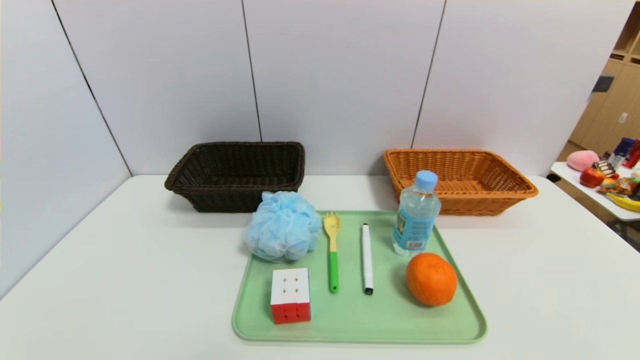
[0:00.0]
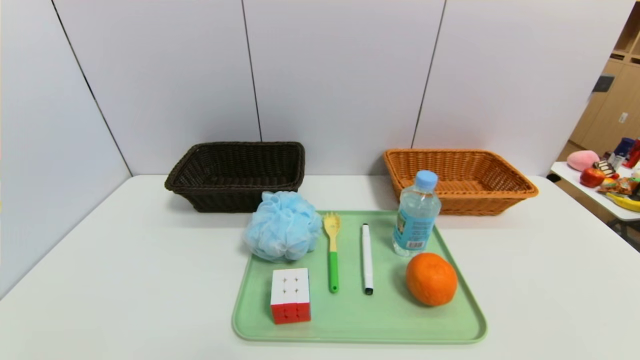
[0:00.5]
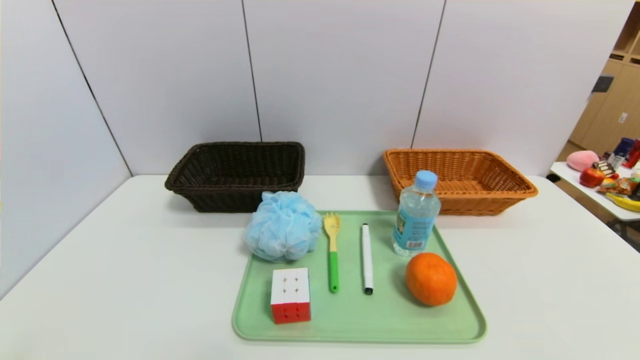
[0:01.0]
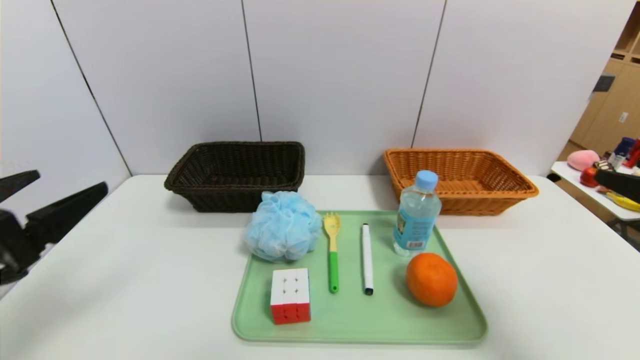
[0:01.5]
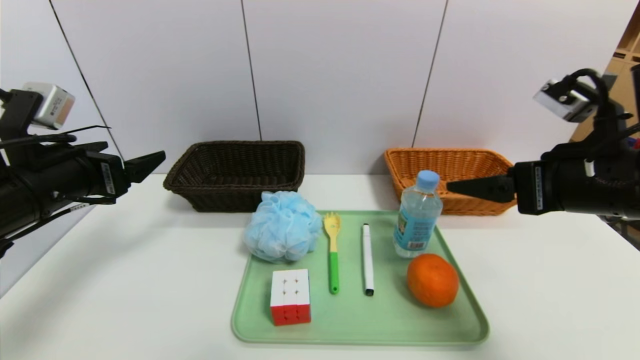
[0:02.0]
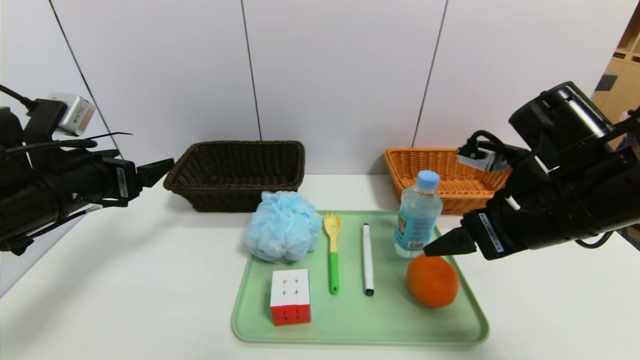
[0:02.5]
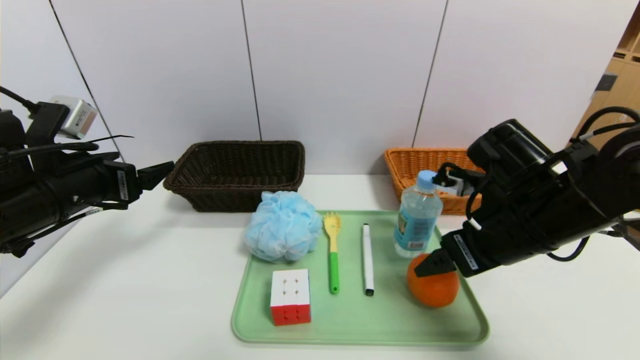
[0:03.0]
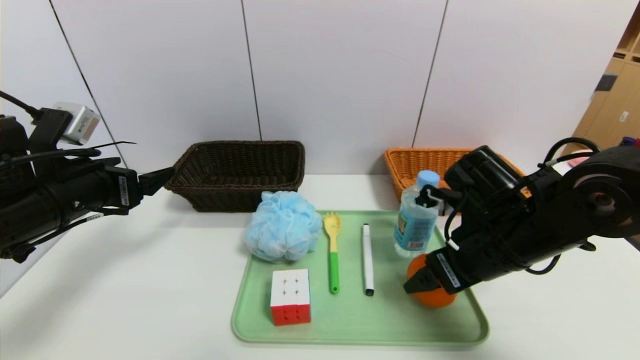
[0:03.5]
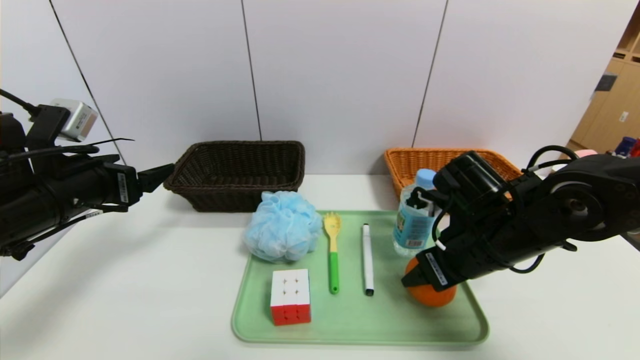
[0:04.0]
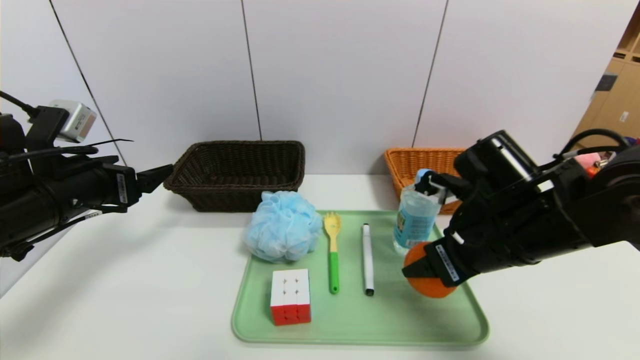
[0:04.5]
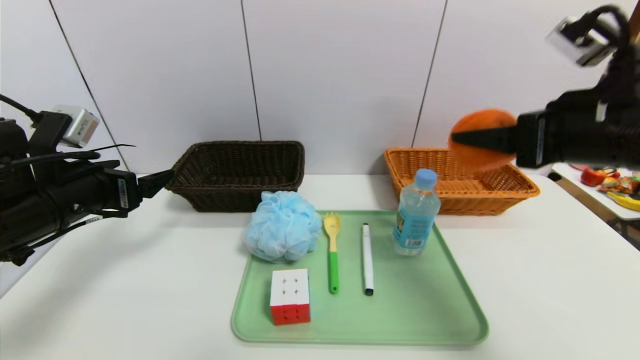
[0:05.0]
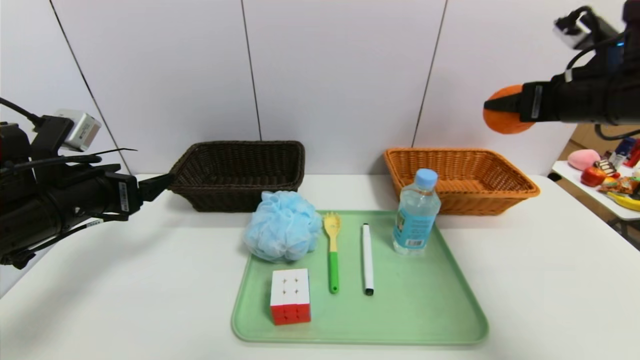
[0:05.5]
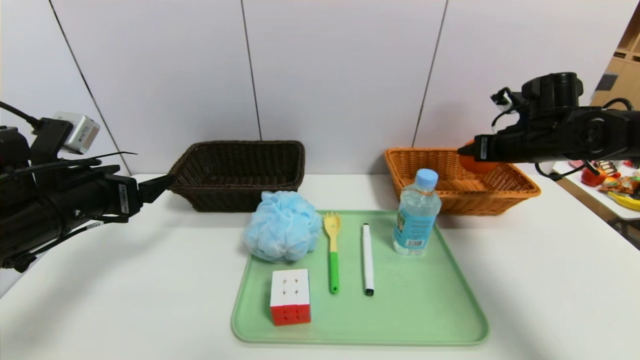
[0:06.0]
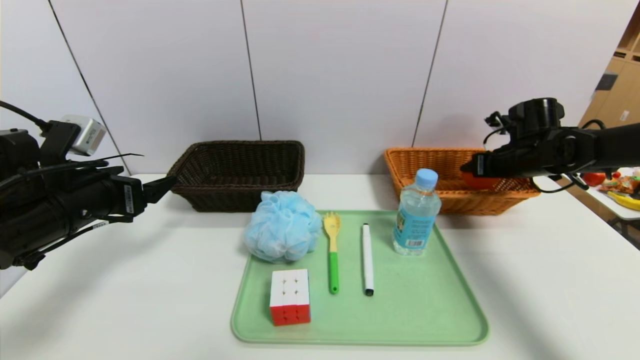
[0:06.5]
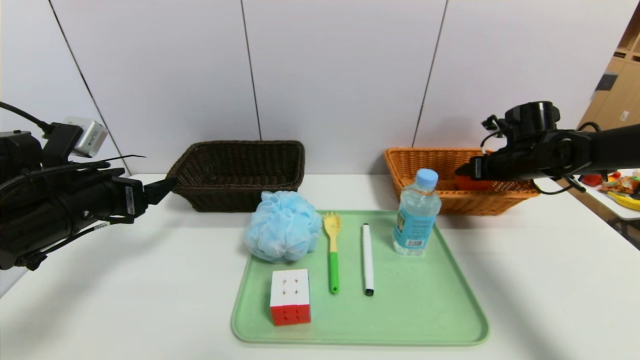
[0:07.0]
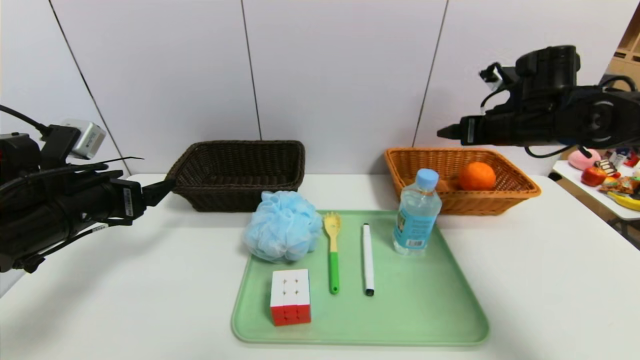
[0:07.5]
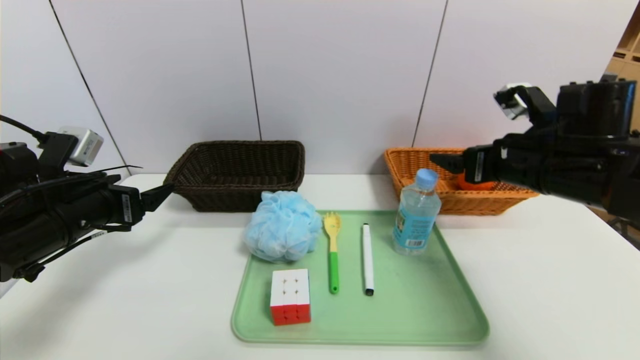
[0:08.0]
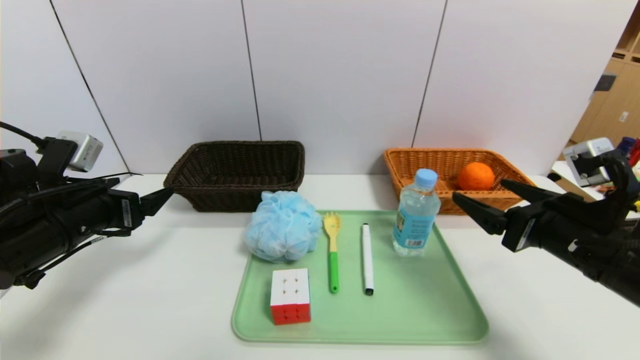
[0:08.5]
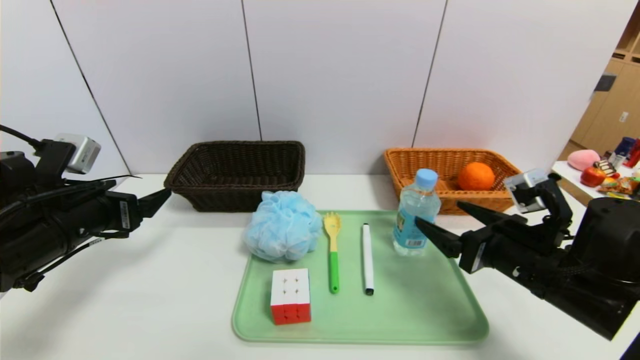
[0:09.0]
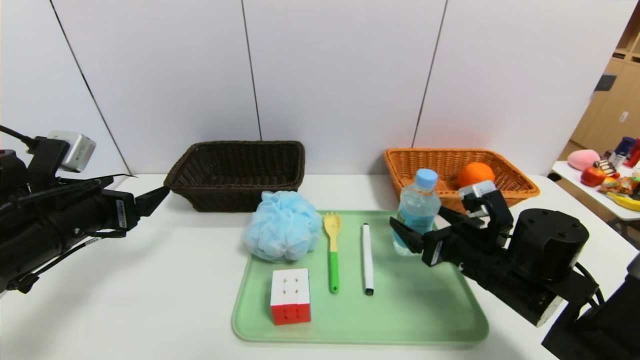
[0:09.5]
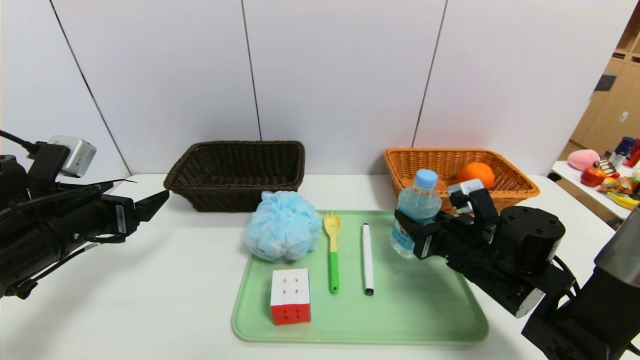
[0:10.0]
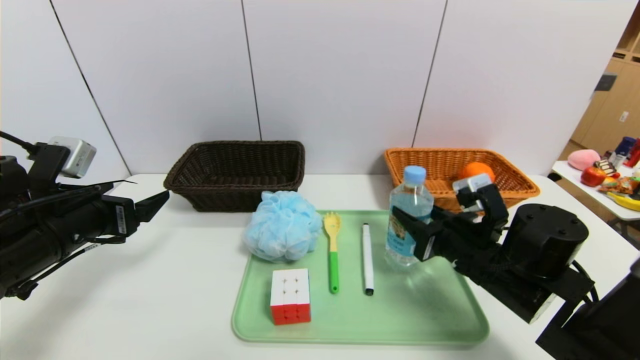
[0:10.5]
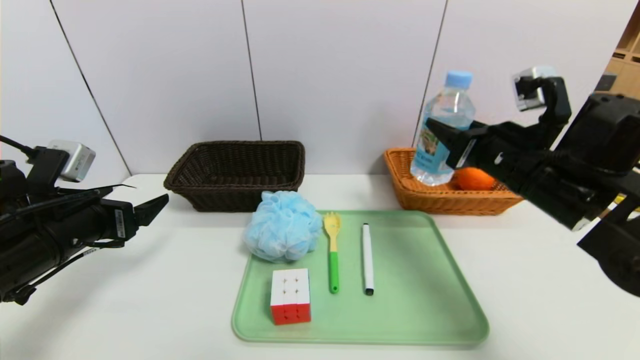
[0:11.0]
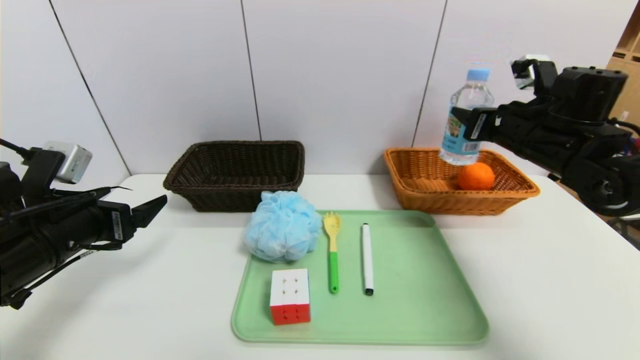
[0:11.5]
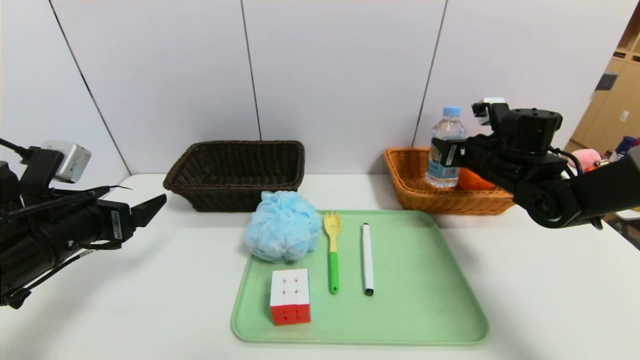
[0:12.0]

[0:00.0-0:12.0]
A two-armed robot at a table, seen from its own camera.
Task of the whole recording: place the food in the right basket with the right gripper, and place the non food items in the left basket with the left gripper.
Step, 0:00.0 to 0:07.0: Grasp the orange and put it in the right basket.
0:00.0 to 0:02.0: Both grippers travel together forward and upward, roughly 30 cm.
0:02.0 to 0:04.0: The right gripper moves downward and to the left, approximately 15 cm, and closes.
0:04.0 to 0:06.0: The right gripper travels to the right and forward by roughly 20 cm.
0:06.0 to 0:08.0: The right gripper heads backward and to the left, covering about 15 cm, and opens up.
0:08.0 to 0:10.0: The right gripper travels downward by some 15 cm, and closes up.
0:10.0 to 0:12.0: The right gripper goes approximately 15 cm forward, upward and to the right.

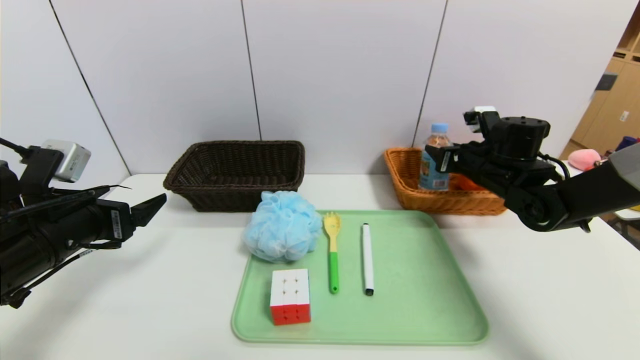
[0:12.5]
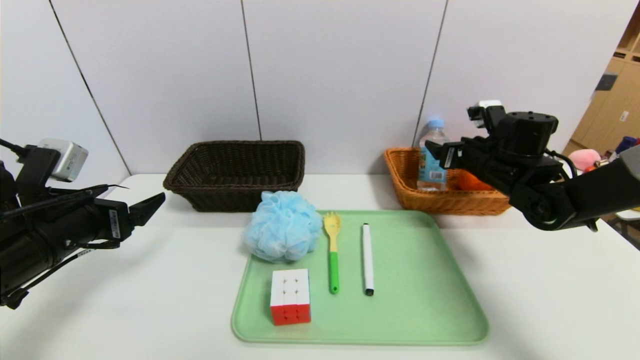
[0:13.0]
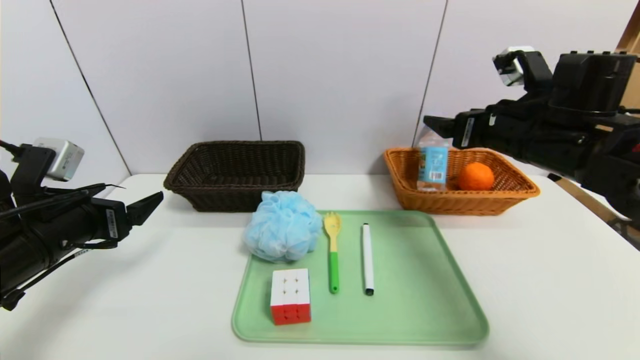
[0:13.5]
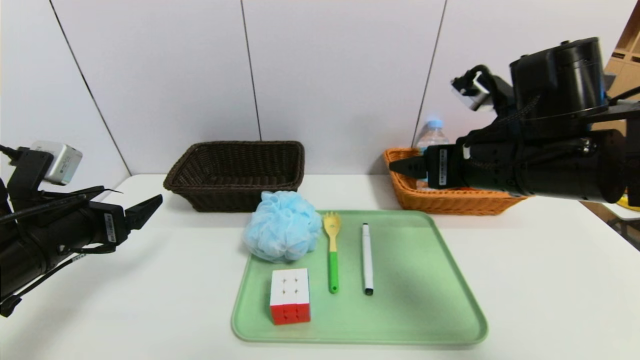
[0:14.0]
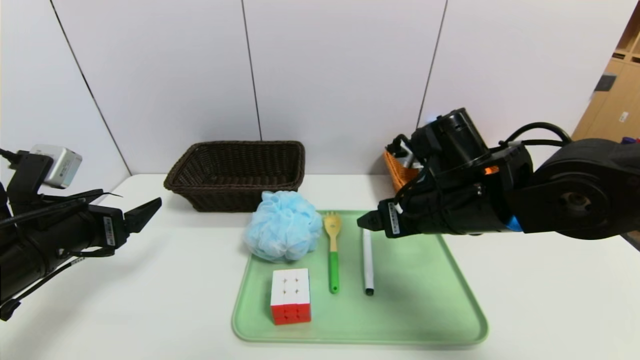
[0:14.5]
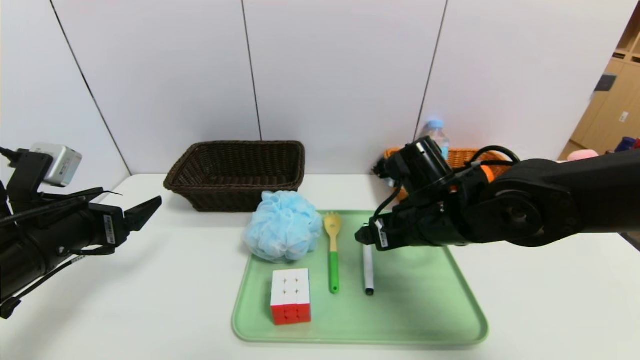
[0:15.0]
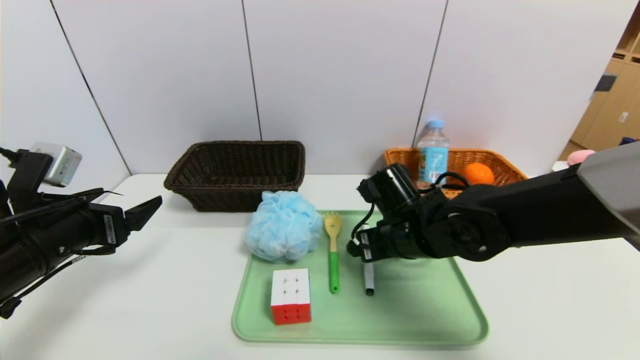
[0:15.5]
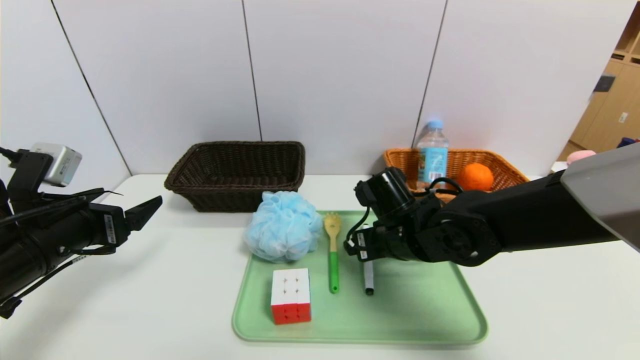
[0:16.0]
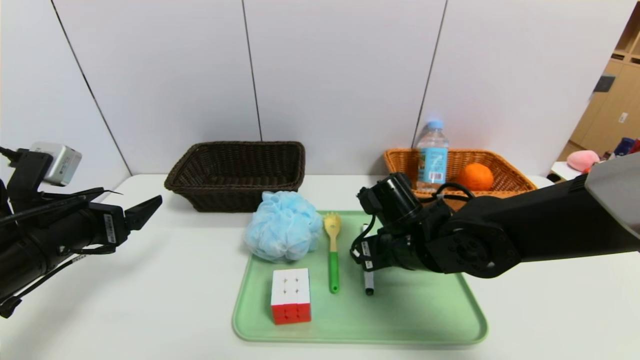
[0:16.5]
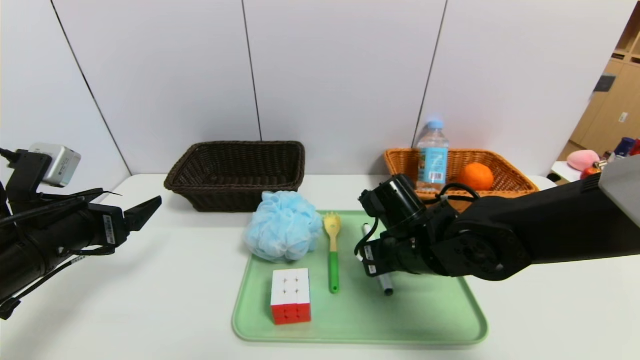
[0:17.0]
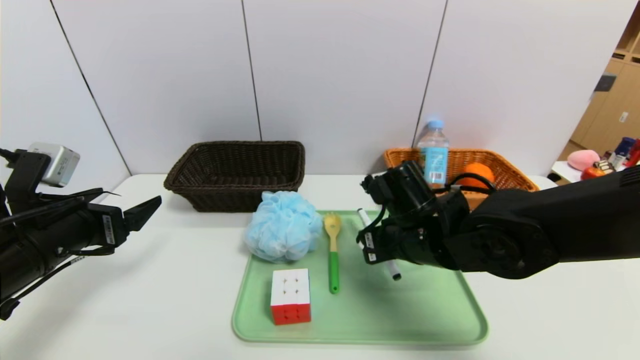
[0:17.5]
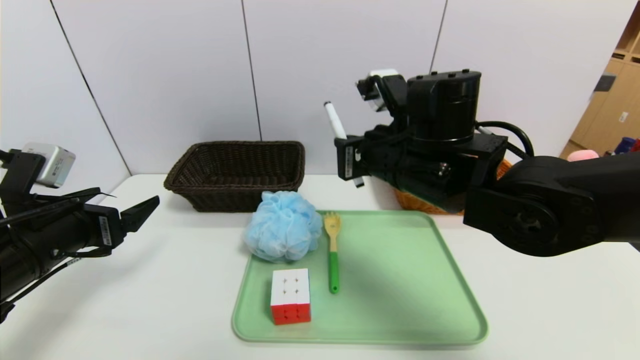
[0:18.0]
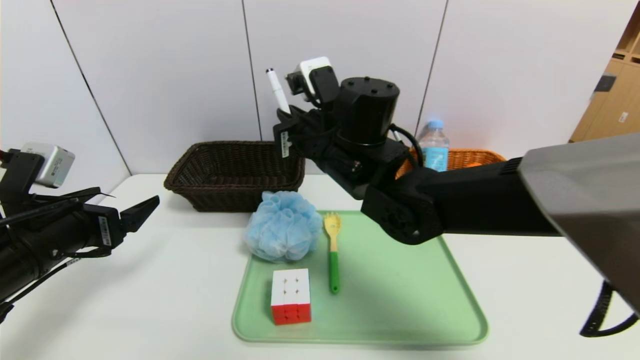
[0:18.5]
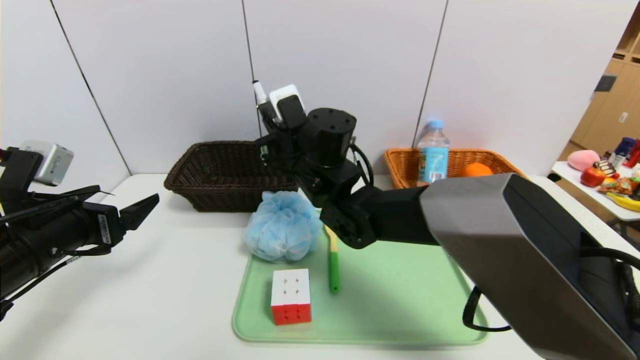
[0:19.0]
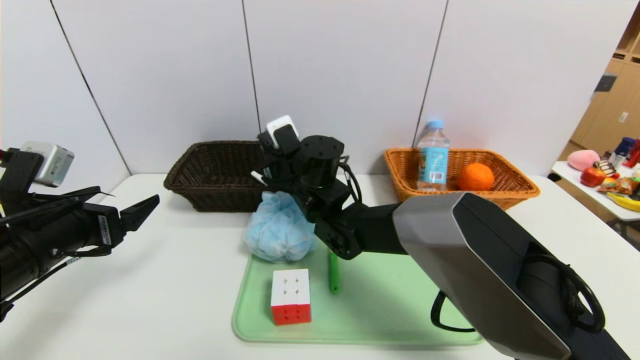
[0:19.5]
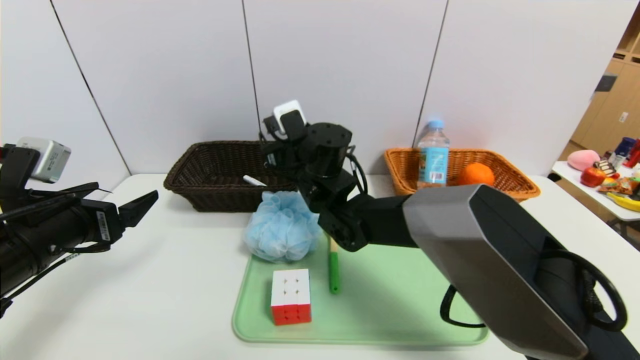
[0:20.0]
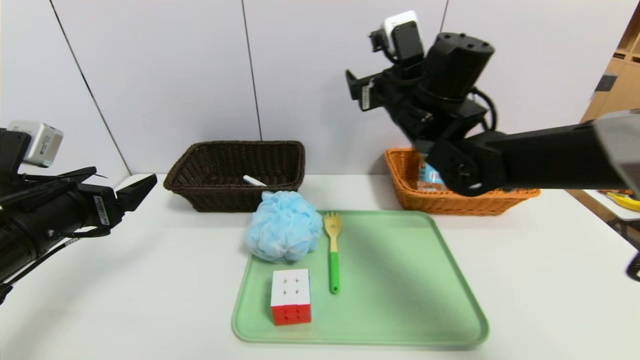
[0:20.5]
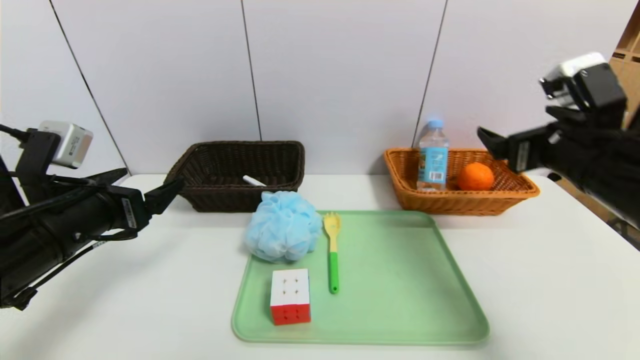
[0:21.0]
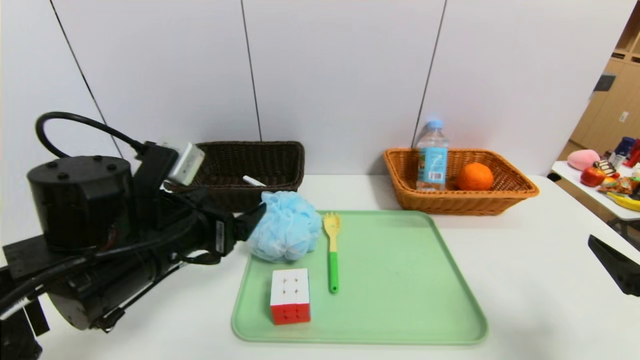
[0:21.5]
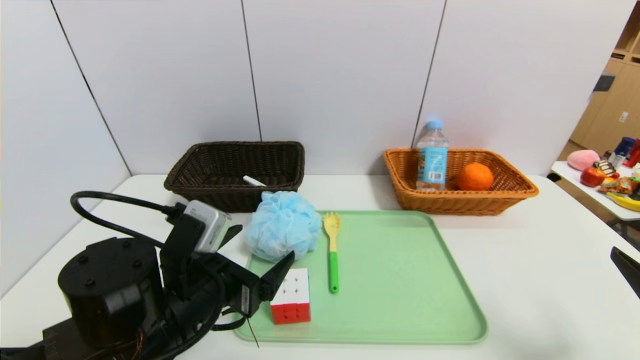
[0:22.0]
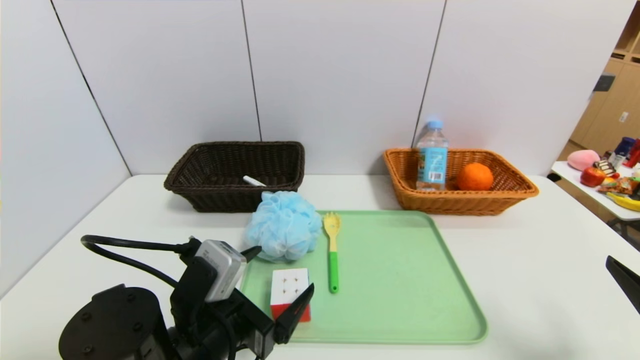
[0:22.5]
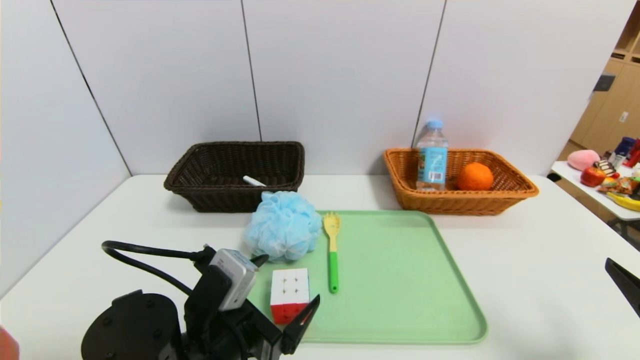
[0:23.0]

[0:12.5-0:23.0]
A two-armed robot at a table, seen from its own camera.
Task of the whole recording: place the food in the right basket with the right gripper, and place the non food items in the left basket with the left gripper.
0:12.5 to 0:14.5: The right gripper goes roughly 20 cm backward and to the left, and opens its fingers.
0:14.5 to 0:16.5: The right gripper moves downward, about 10 cm.
0:16.5 to 0:19.0: The right gripper travels to the left, upward and forward by about 20 cm, and closes its fingers.
0:19.0 to 0:21.0: The right gripper moves to the right and backward, about 35 cm, and opens up.
0:21.0 to 0:23.0: The right gripper heads backward and downward, covering approximately 15 cm. Meanwhile the left gripper travels to the right, downward and backward by about 20 cm.
